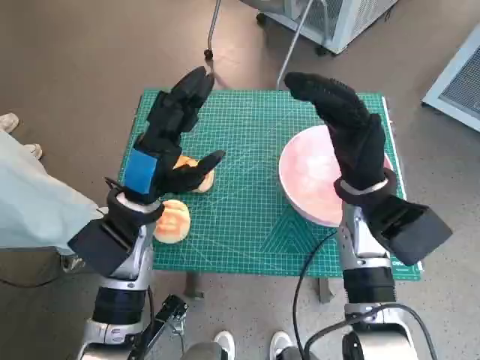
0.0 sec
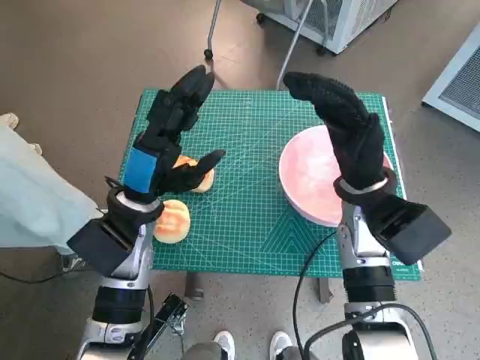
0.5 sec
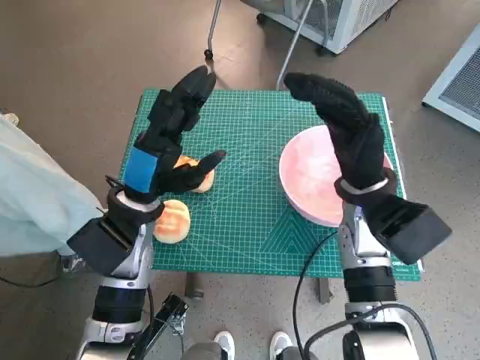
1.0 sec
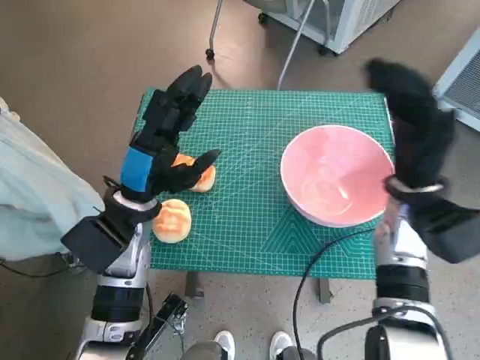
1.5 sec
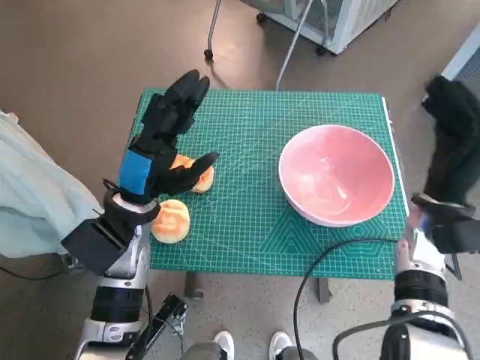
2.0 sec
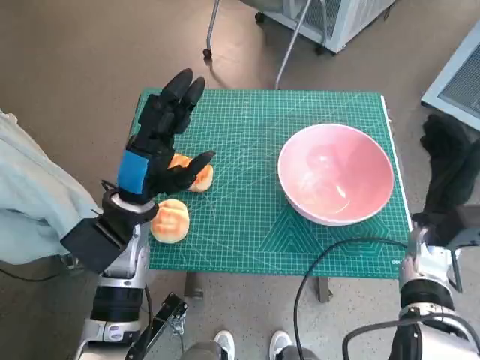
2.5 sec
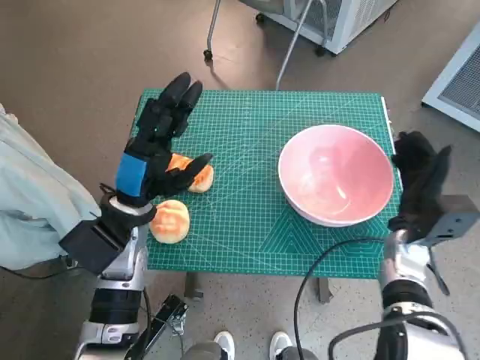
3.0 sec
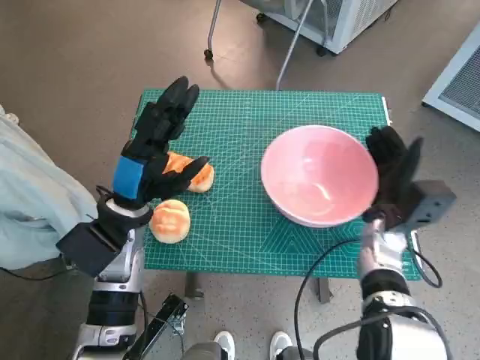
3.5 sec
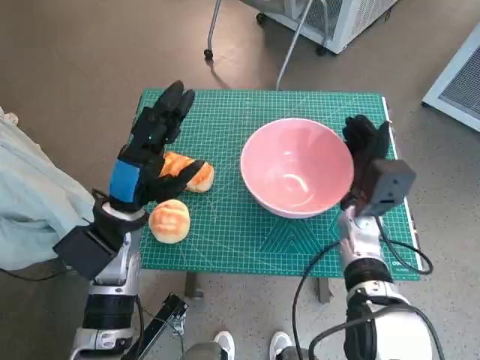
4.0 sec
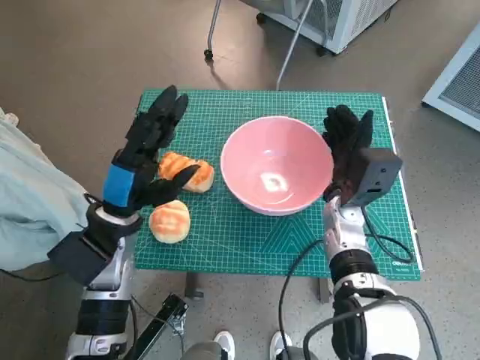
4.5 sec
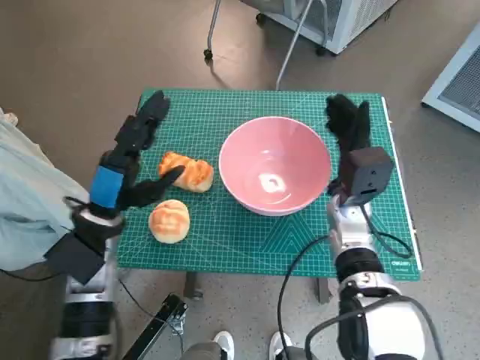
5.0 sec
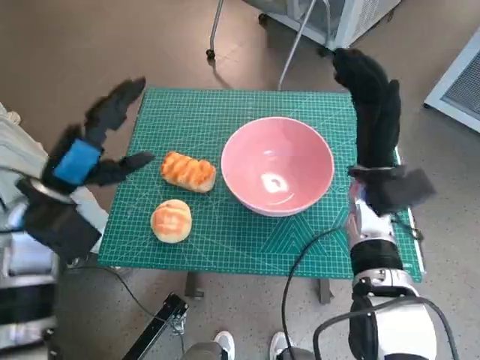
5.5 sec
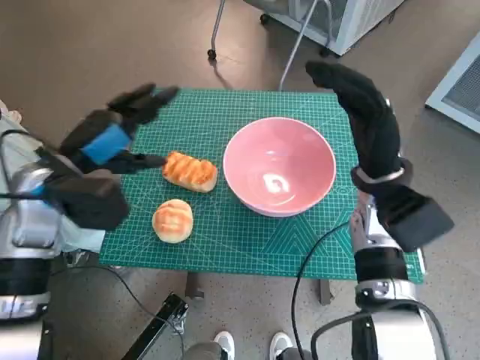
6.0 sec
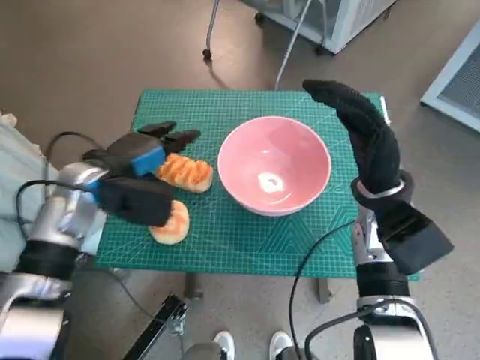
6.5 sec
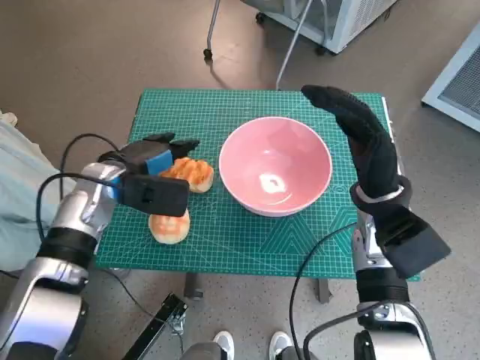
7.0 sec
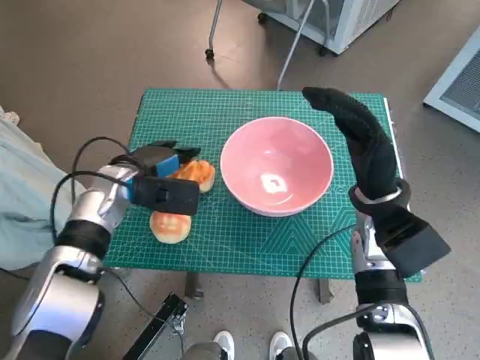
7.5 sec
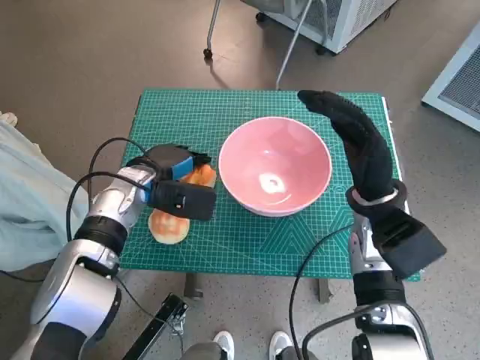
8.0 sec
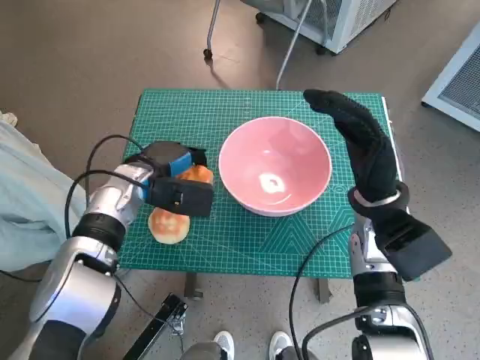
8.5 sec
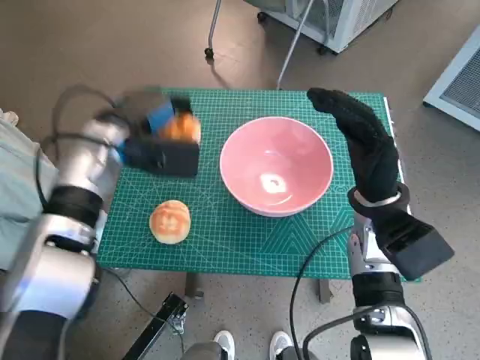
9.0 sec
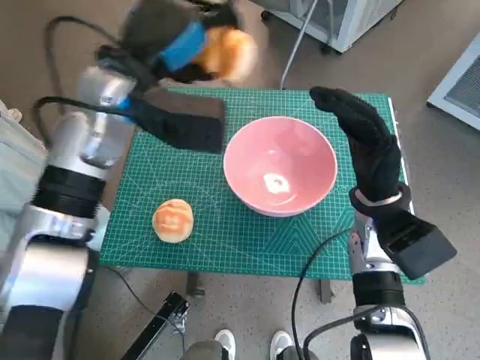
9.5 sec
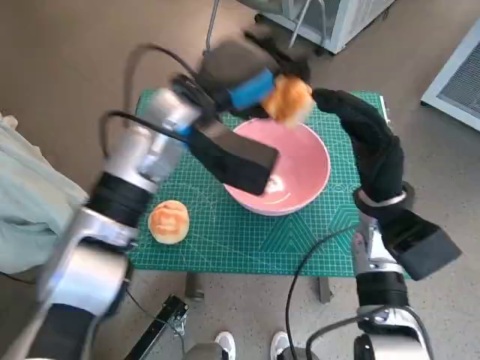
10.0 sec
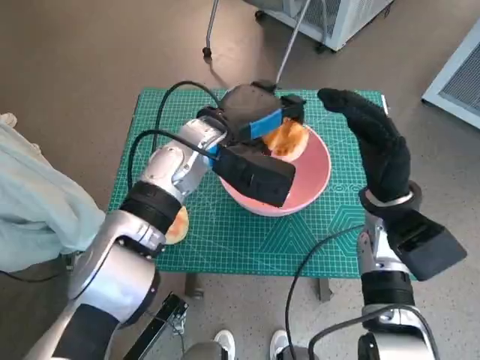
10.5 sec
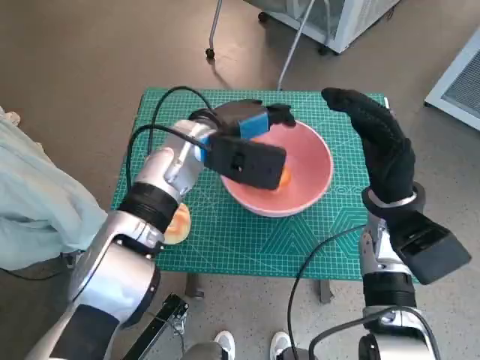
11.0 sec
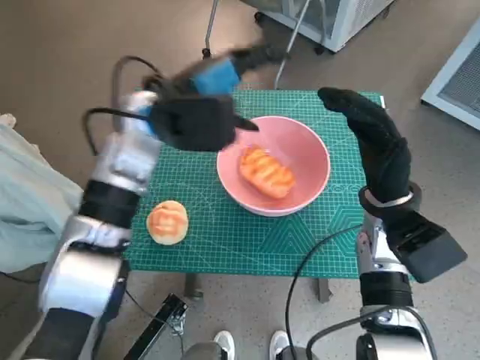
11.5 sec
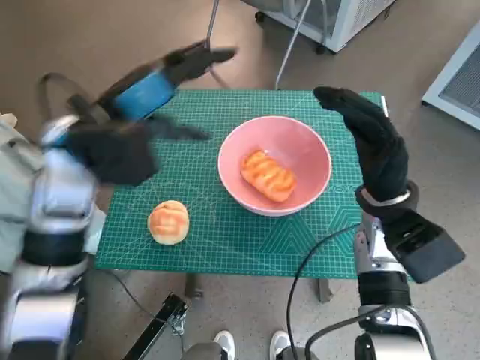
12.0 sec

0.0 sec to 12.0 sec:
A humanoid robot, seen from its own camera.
Task of the whole recording: Push the bowl to the center of the table and put the bread into the bowl.
Step, 0.0 sec to 4.5 sec: Move the pink bowl to the center of table with right hand.
Step, 5.0 sec to 8.0 sec: Grasp the long bread with left hand.
Step, 8.5 sec to 11.0 sec: Place the long bread in pink bowl with left hand.
2.0 sec to 4.0 sec: The right hand travels to the left and downward by about 10 cm.
4.0 sec to 6.0 sec: The left hand shifts about 10 cm upward and to the left. Meanwhile the right hand moves upward, approximately 10 cm.
6.0 sec to 8.0 sec: The left hand shifts roughly 10 cm downward, to the right and forward.
8.0 sec to 10.0 sec: The left hand goes approximately 15 cm upward and to the right.
10.0 sec to 12.0 sec: The left hand shifts roughly 10 cm to the left.

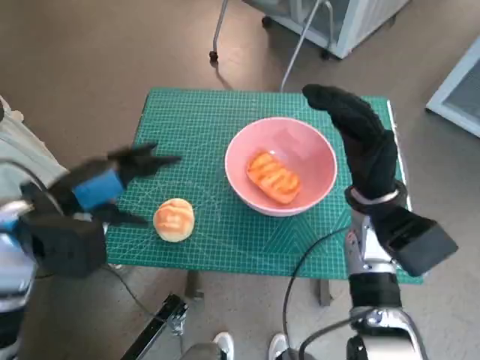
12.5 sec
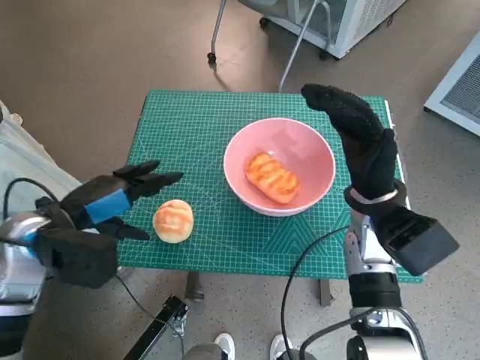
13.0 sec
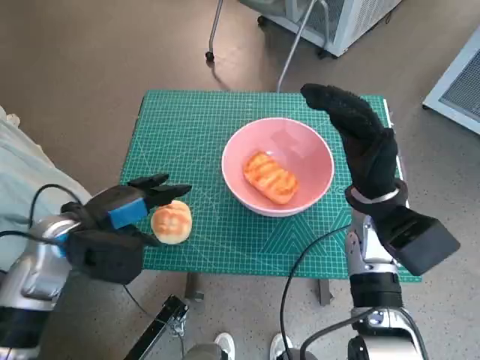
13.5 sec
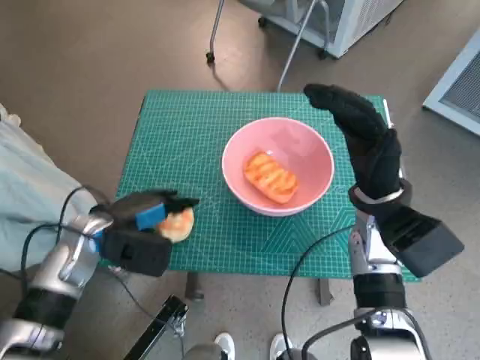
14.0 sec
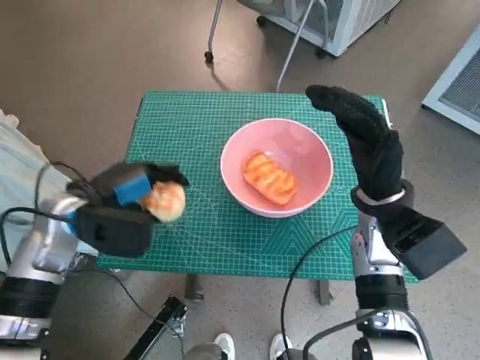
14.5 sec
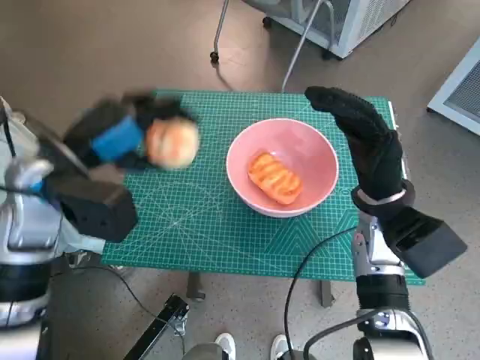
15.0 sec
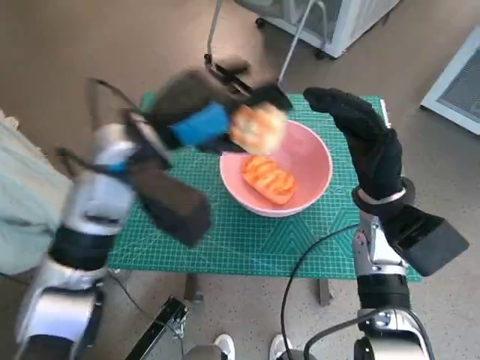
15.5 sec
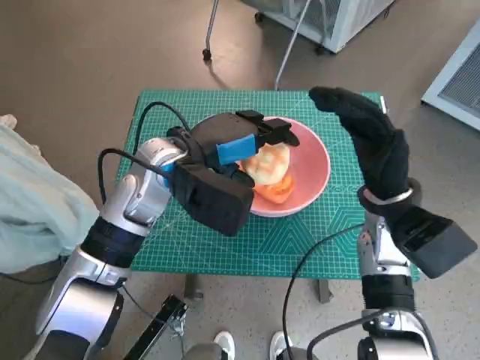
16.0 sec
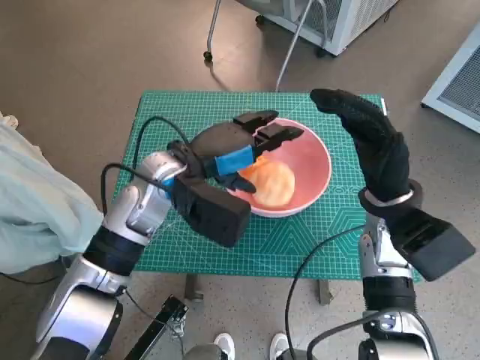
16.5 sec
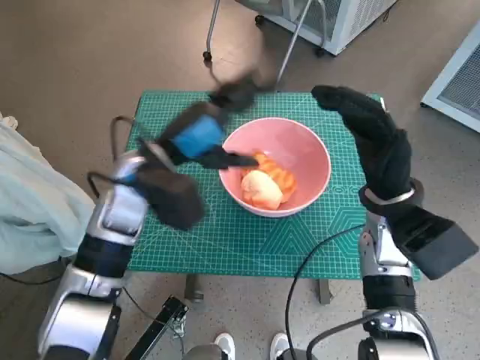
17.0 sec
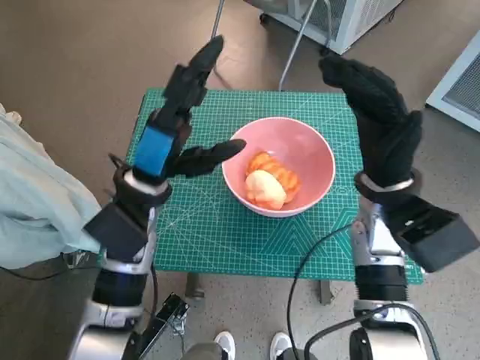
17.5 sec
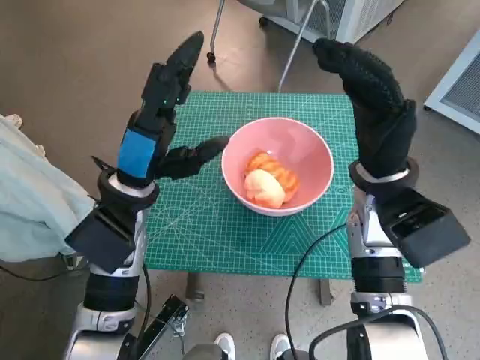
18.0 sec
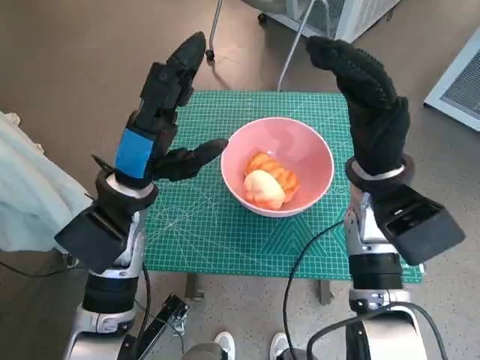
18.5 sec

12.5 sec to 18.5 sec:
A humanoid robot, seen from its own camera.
Task of the whole recording: Push the bowl to the center of the table and put the bread into the bowl.
Step, 12.5 sec to 14.0 sec: Grasp the round bread with left hand.
Step, 14.5 sec to 16.5 sec: Place the round bread in pink bowl with left hand.
12.5 sec to 14.5 sec: The left hand moves downward, roughly 5 cm.
14.5 sec to 16.5 sec: The left hand travels to the right by roughly 15 cm.
16.5 sec to 18.5 sec: The left hand ends up approximately 5 cm from where it was.

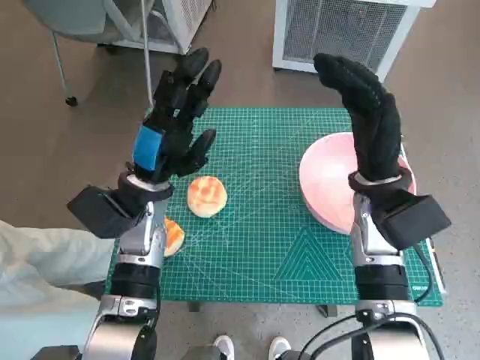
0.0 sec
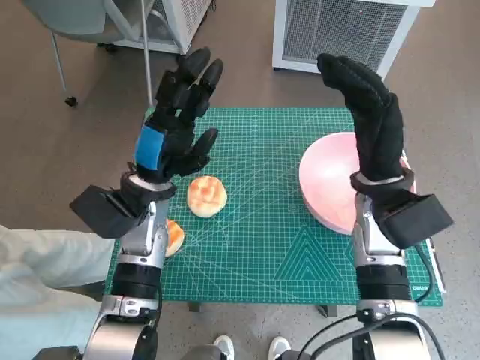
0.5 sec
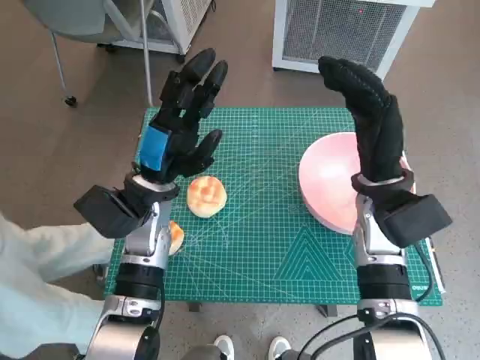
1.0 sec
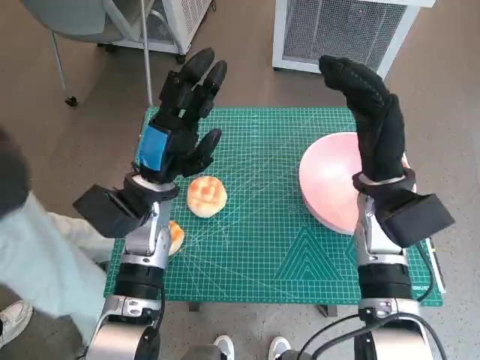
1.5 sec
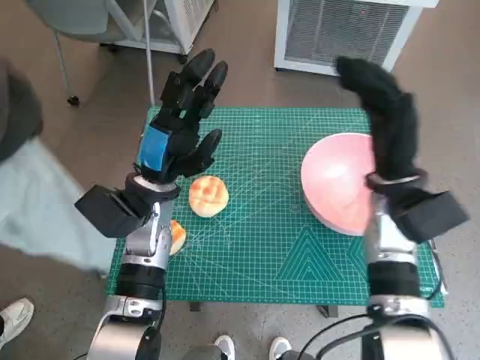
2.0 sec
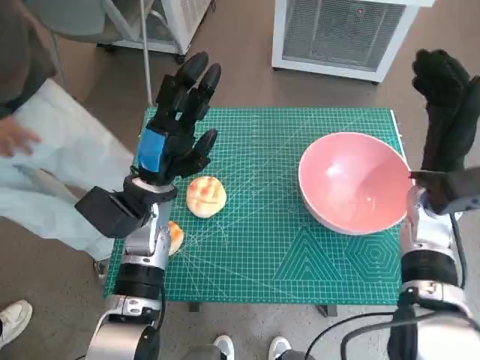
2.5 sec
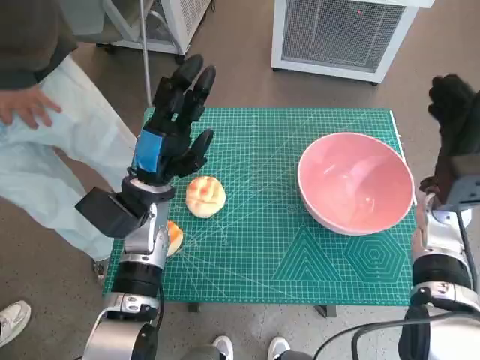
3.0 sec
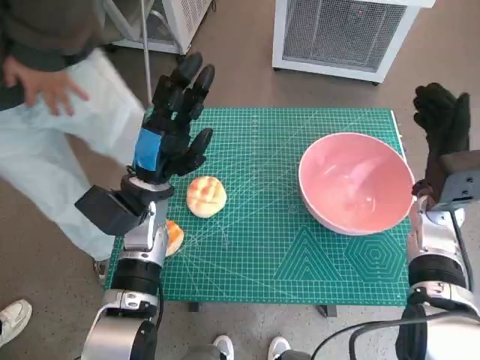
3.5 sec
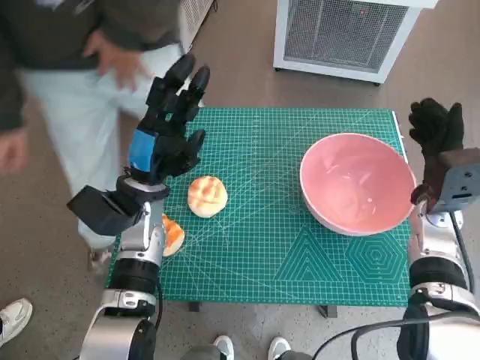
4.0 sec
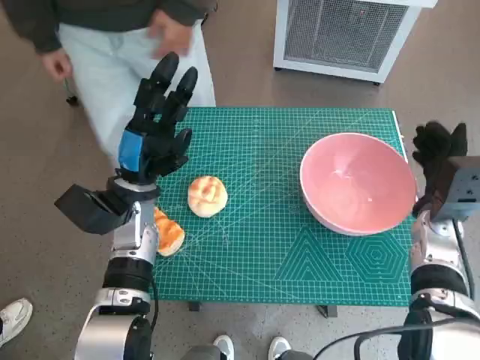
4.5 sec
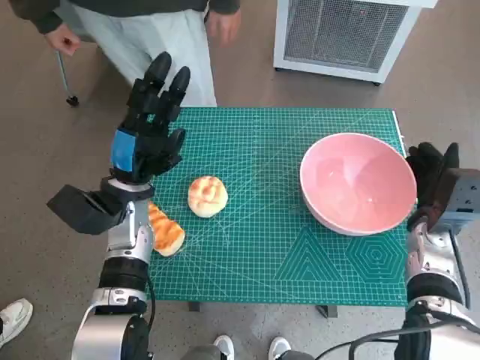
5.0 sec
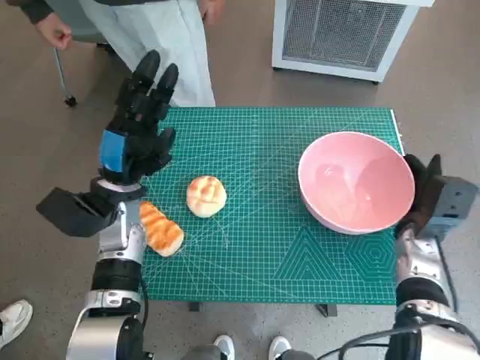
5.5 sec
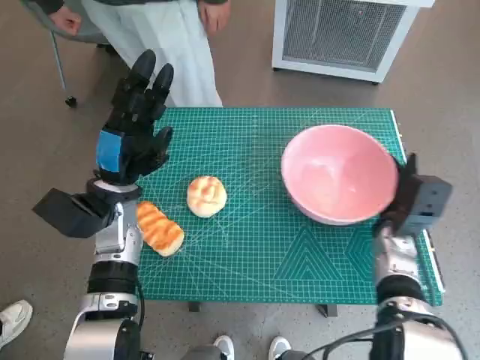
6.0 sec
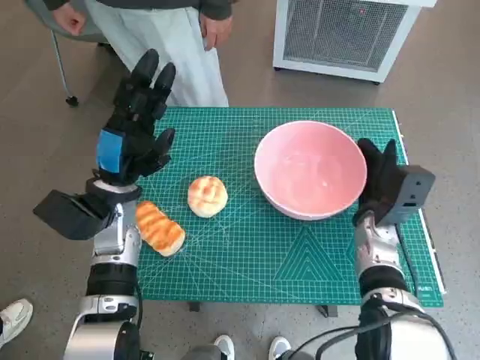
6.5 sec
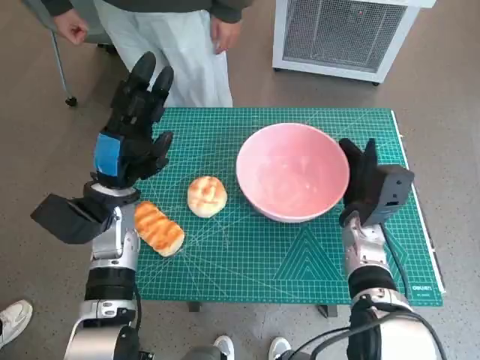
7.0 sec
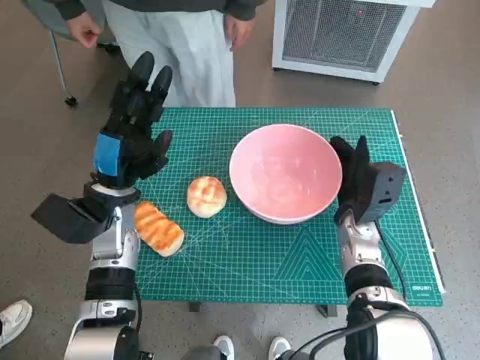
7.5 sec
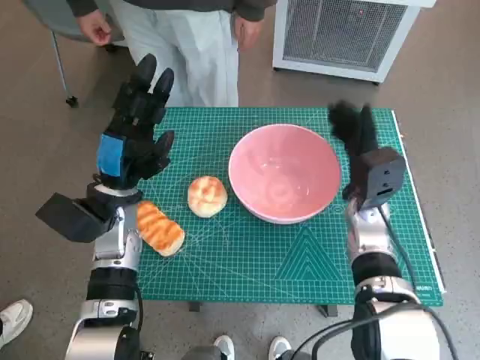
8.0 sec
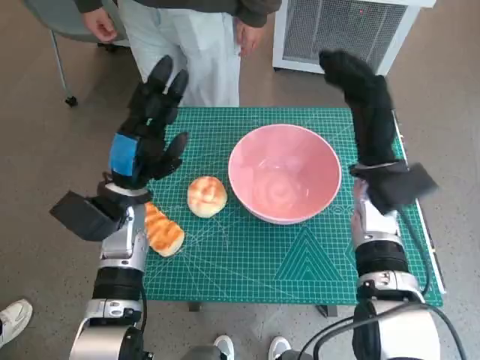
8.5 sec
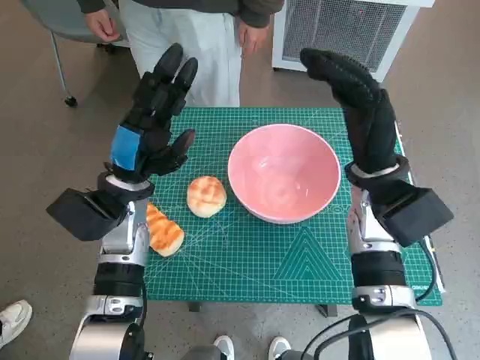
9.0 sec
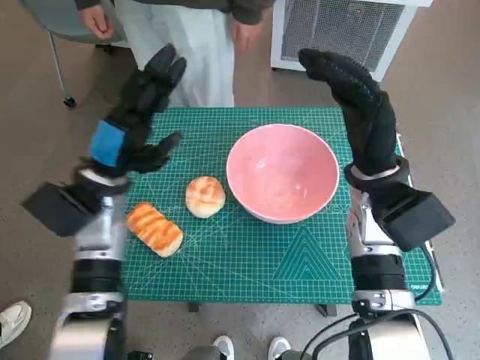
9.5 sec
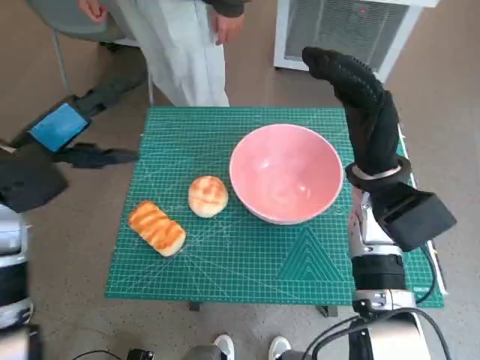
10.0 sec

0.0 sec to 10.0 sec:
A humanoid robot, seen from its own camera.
Task of the whole recording: Push the bowl to the center of the table and put the bread into the bowl.
Step, 0.0 sec to 8.0 sec: Move the pink bowl to the center of table with right hand.
2.0 sec to 4.0 sec: The right hand shifts roughly 5 cm to the right.
4.0 sec to 6.0 sec: The right hand moves downward, approximately 5 cm.
6.0 sec to 8.0 sec: The right hand is displaced to the left by some 5 cm.
8.0 sec to 10.0 sec: The right hand heads upward, covering roughly 10 cm; the left hand travels upward and to the left by approximately 15 cm.
